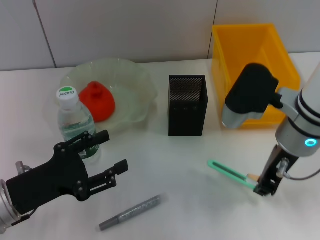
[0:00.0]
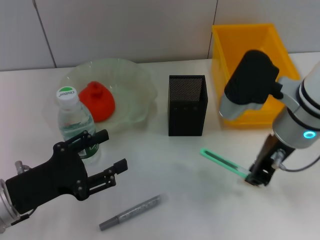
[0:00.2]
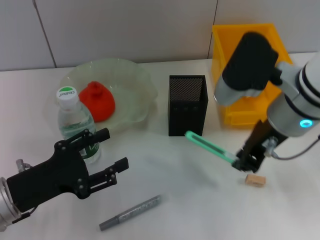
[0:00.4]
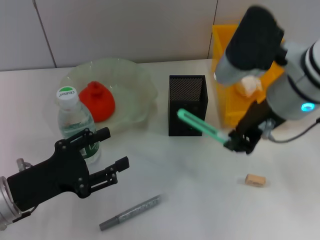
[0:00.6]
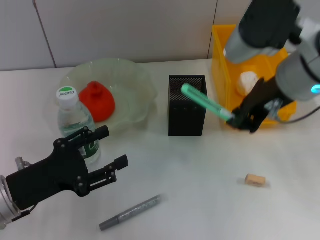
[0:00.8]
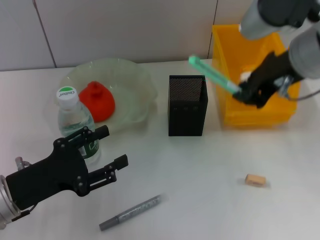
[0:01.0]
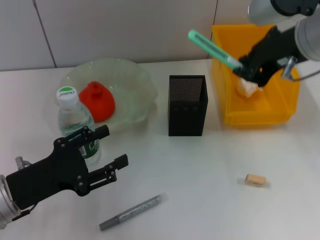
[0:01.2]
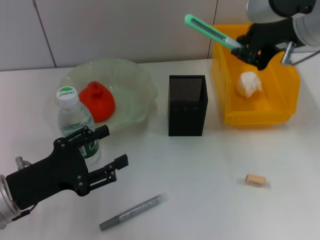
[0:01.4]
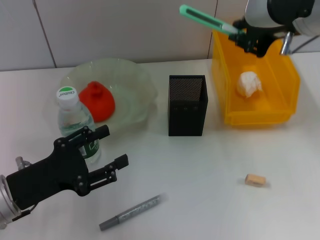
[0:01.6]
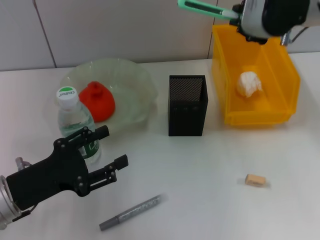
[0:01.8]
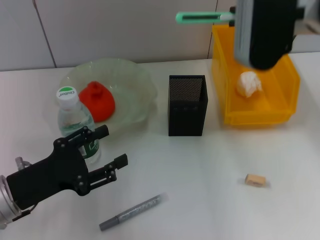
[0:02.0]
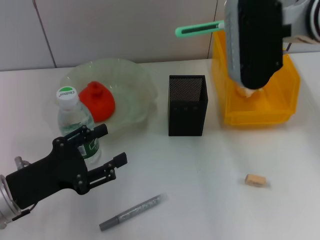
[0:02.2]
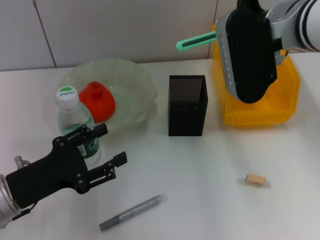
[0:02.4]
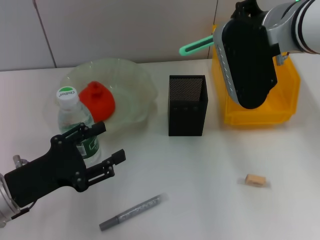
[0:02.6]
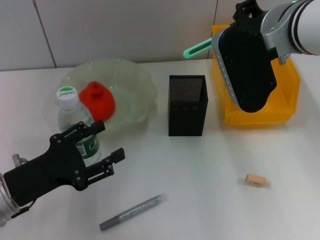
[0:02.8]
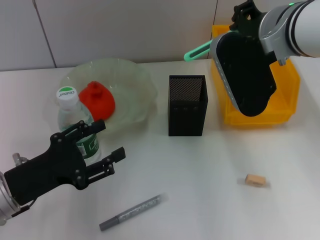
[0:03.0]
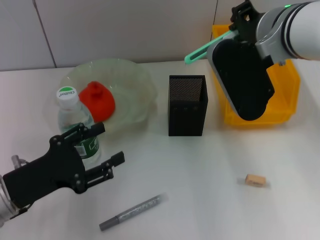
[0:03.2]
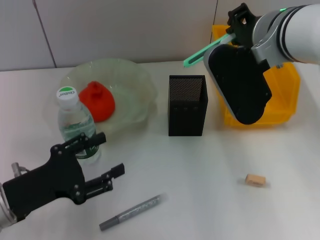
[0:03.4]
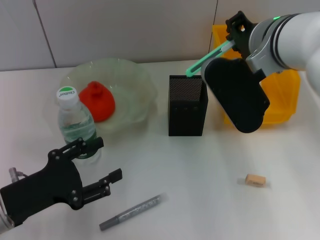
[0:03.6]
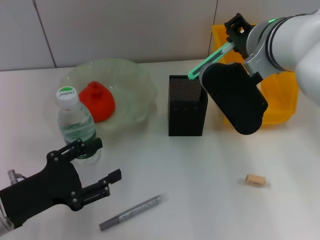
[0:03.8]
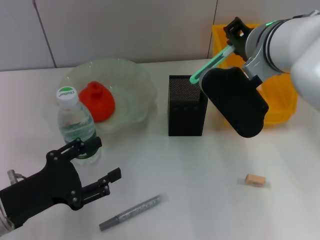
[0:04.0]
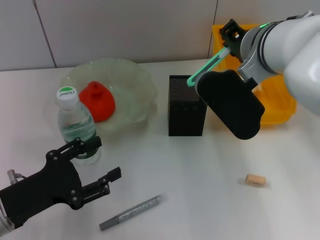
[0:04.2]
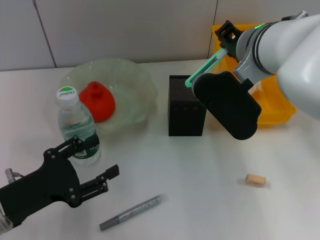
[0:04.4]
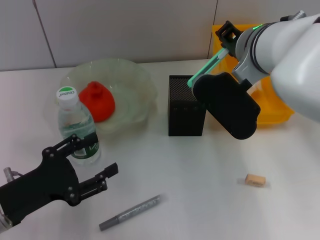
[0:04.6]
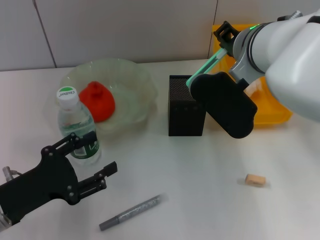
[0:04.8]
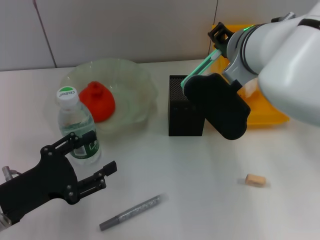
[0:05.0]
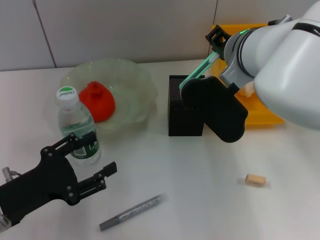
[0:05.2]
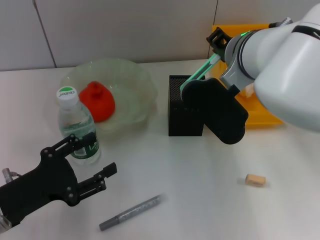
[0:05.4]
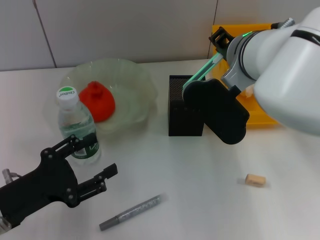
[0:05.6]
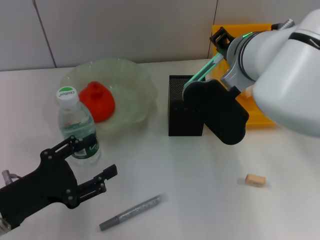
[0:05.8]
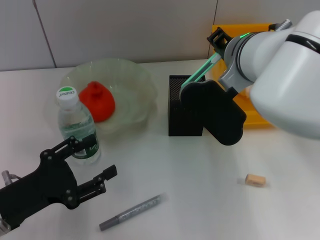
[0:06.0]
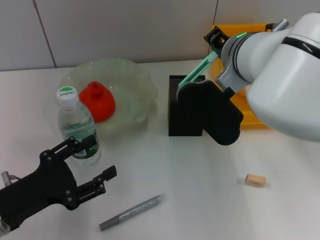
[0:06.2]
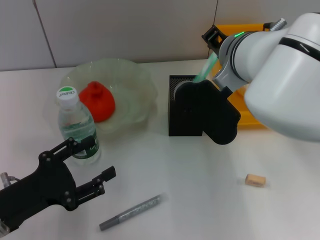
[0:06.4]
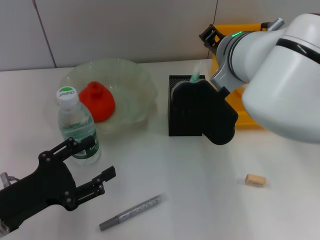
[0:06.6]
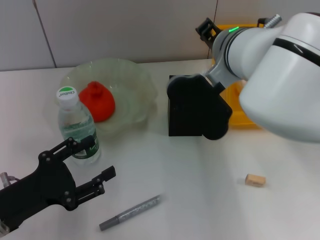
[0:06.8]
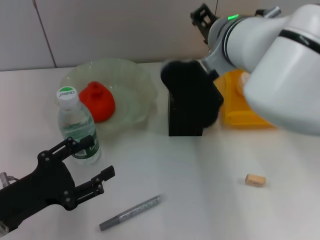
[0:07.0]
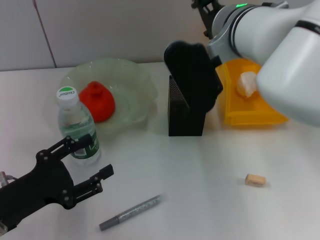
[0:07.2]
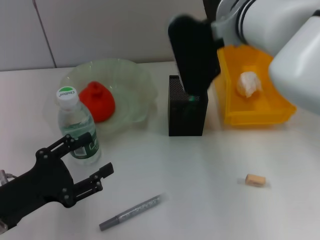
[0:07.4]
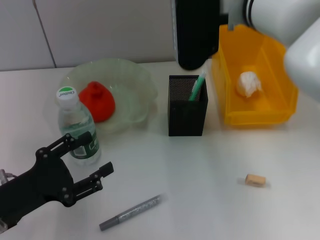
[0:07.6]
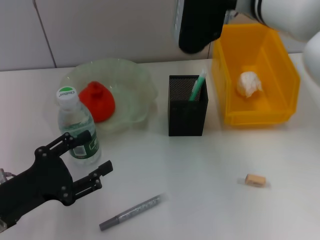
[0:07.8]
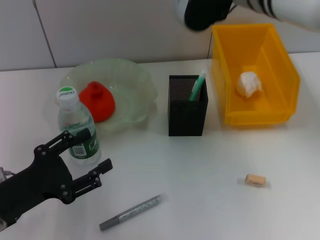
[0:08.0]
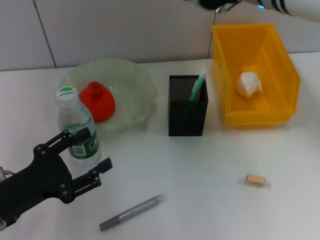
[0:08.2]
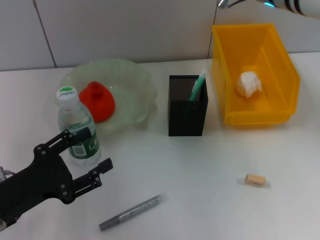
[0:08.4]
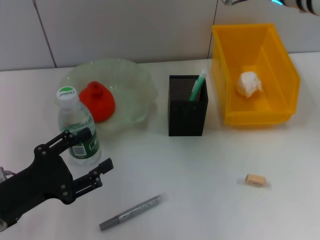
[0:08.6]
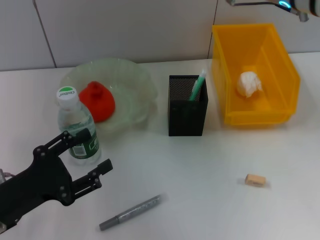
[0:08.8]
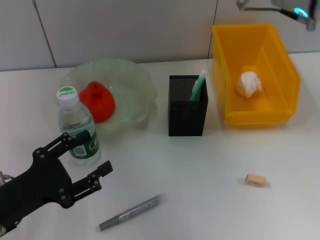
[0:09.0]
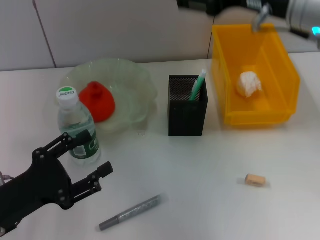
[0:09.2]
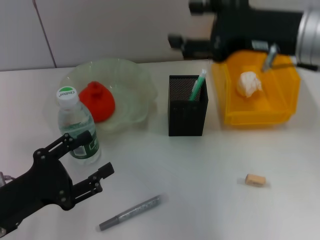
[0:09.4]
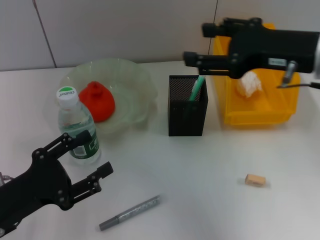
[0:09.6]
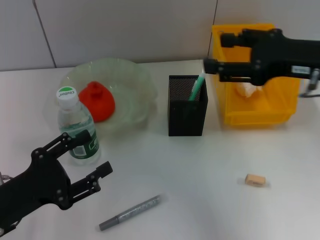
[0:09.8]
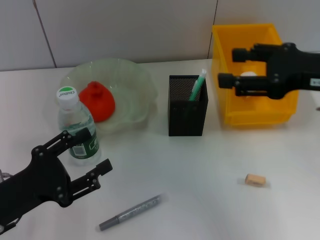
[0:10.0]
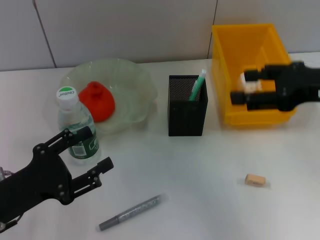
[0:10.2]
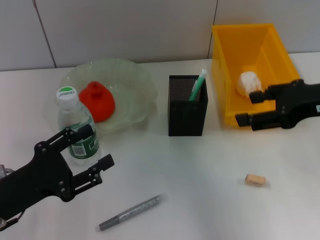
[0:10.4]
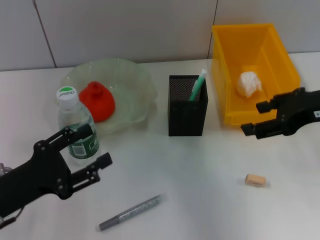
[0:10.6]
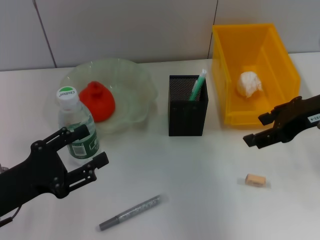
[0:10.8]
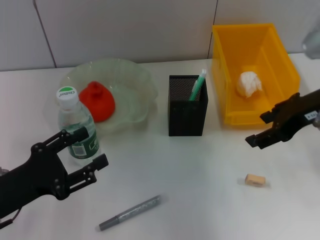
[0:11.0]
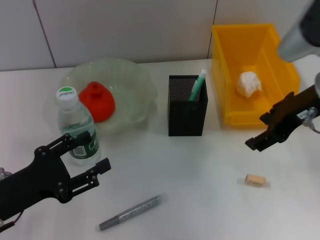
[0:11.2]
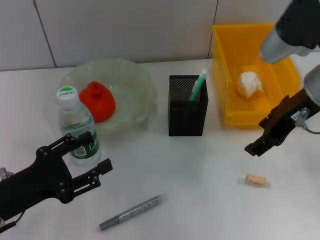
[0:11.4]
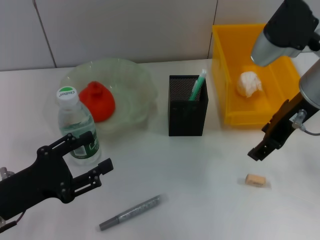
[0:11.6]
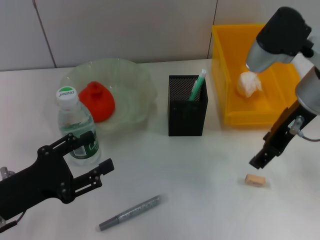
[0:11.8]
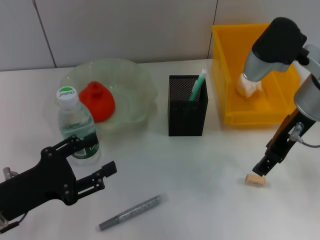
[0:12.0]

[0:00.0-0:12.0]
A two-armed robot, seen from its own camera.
Step, 0:00.0 to 0:06.8: Place the blue utility knife into the pen holder with the right hand.
0:00.0 to 0:01.6: The right gripper shifts some 10 cm upward.
0:01.6 to 0:03.0: The right gripper changes place by approximately 5 cm.
0:03.0 to 0:06.0: There are only small adjustments of the grippers.
0:06.0 to 0:07.6: The right gripper travels upward by some 5 cm, and opens up.
0:07.6 to 0:09.0: The right gripper travels to the right by some 5 cm.
0:09.0 to 0:10.4: The right gripper moves to the right and downward, approximately 10 cm.
0:10.4 to 0:12.0: The right gripper shifts some 5 cm to the left.

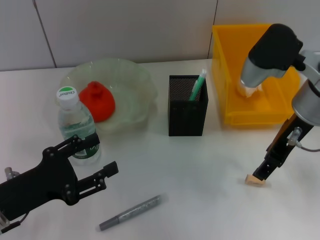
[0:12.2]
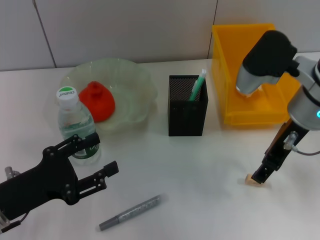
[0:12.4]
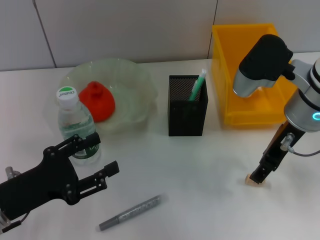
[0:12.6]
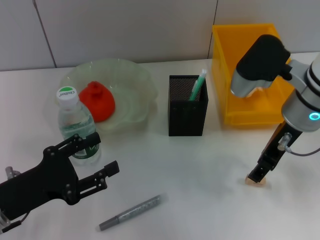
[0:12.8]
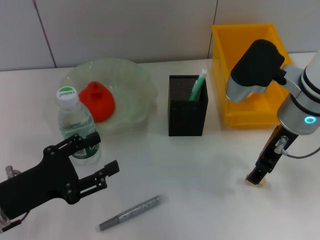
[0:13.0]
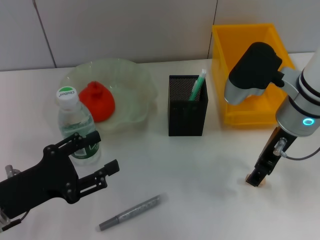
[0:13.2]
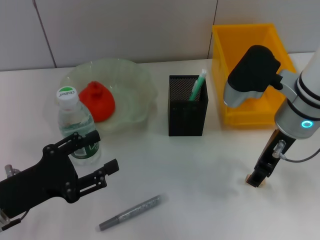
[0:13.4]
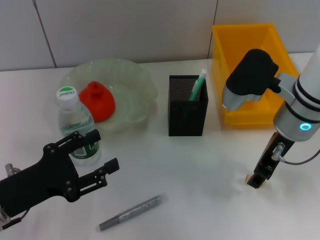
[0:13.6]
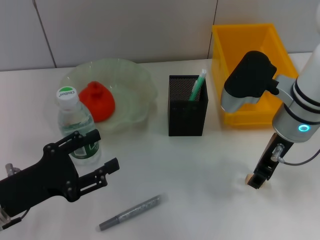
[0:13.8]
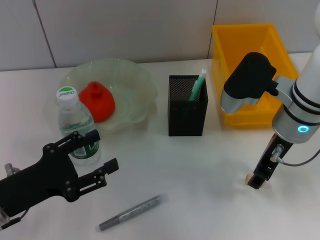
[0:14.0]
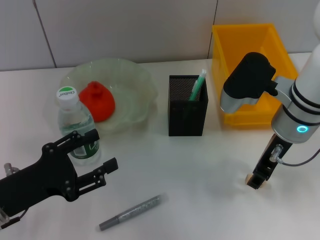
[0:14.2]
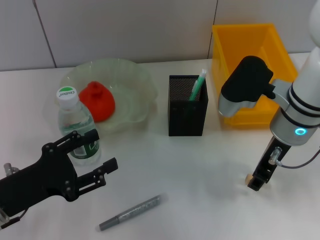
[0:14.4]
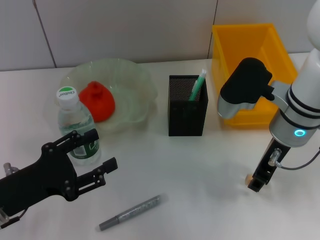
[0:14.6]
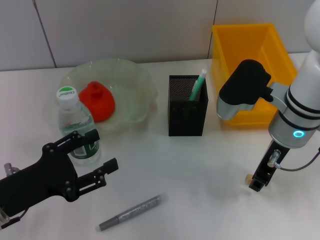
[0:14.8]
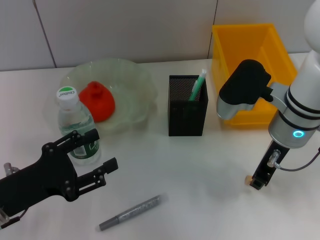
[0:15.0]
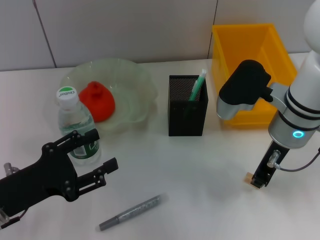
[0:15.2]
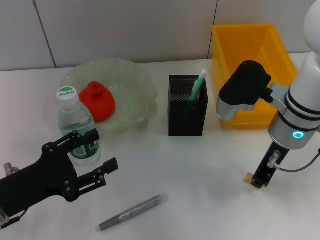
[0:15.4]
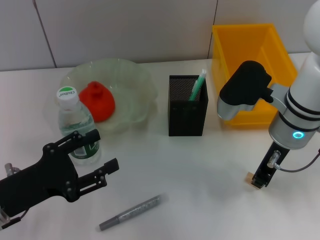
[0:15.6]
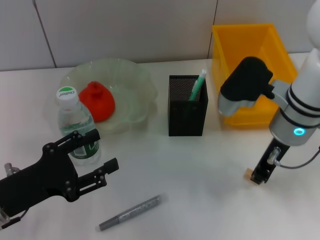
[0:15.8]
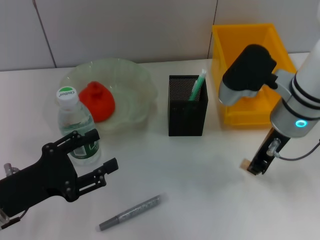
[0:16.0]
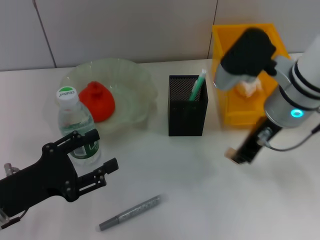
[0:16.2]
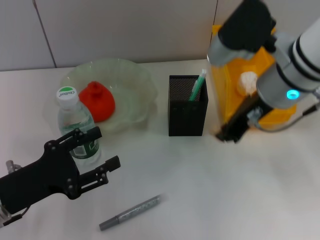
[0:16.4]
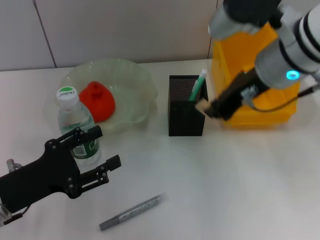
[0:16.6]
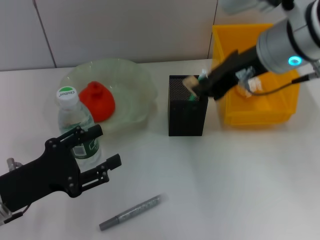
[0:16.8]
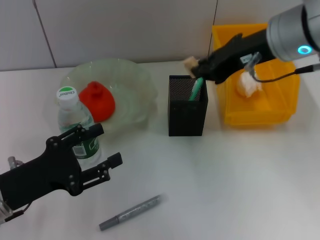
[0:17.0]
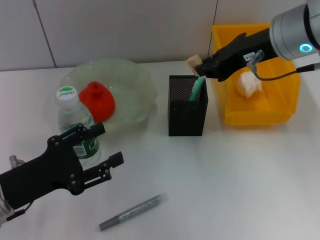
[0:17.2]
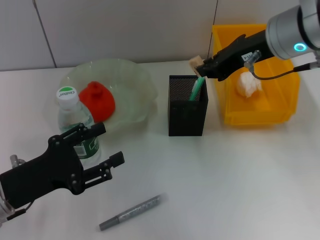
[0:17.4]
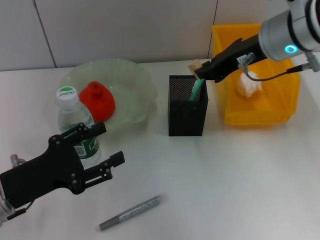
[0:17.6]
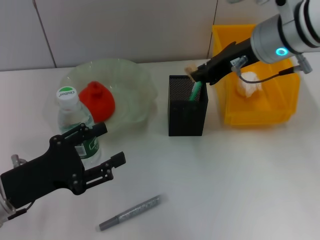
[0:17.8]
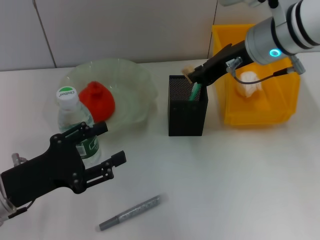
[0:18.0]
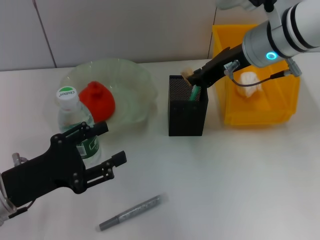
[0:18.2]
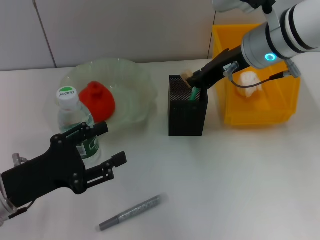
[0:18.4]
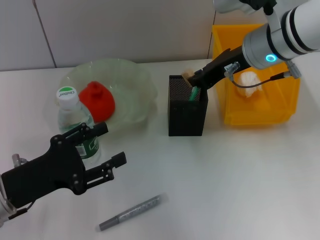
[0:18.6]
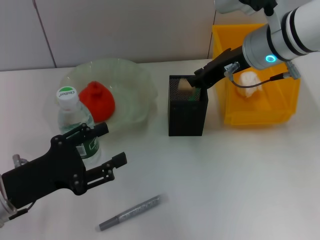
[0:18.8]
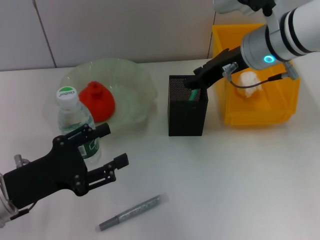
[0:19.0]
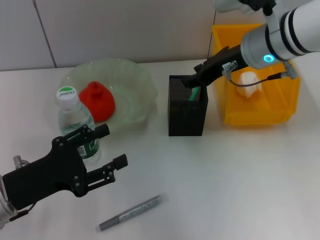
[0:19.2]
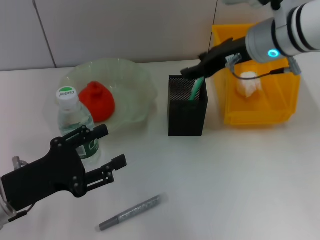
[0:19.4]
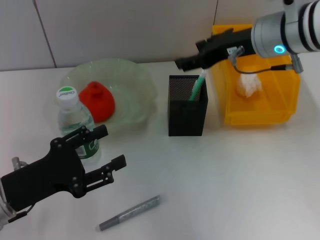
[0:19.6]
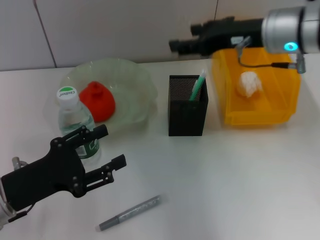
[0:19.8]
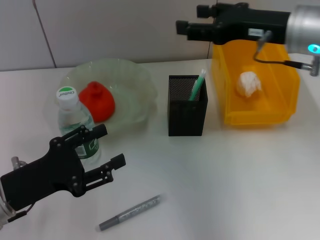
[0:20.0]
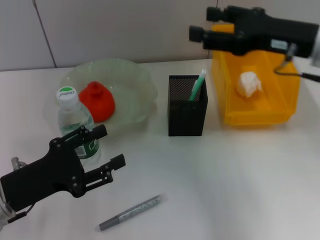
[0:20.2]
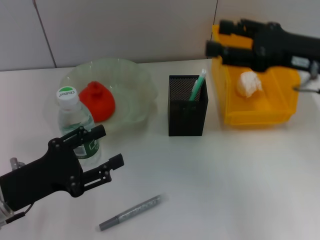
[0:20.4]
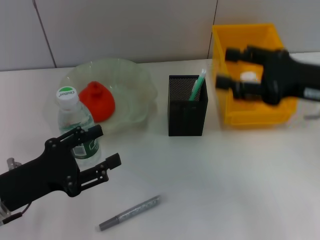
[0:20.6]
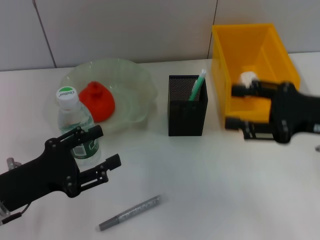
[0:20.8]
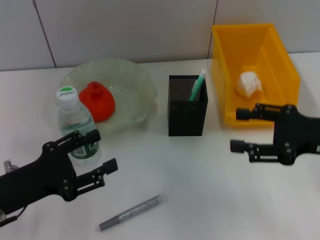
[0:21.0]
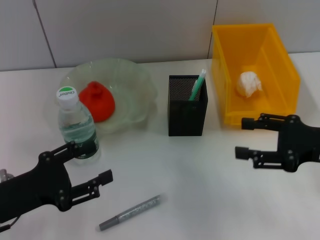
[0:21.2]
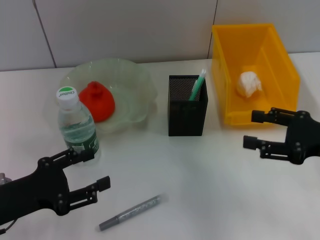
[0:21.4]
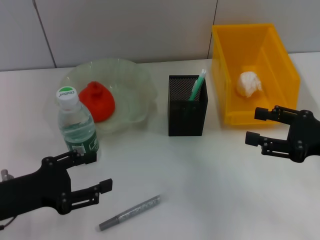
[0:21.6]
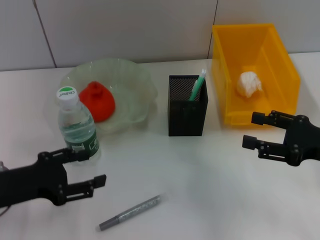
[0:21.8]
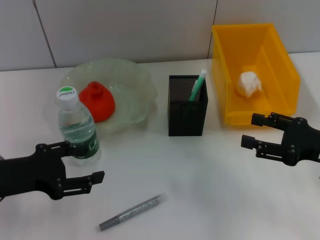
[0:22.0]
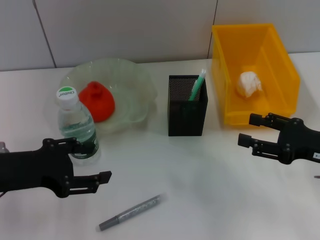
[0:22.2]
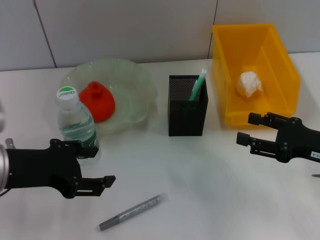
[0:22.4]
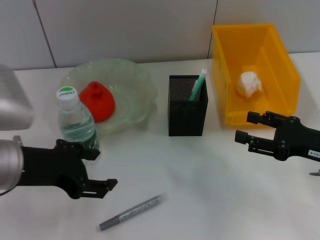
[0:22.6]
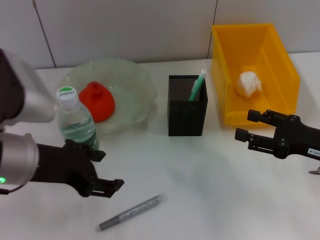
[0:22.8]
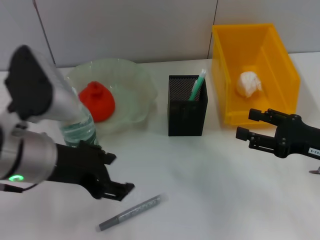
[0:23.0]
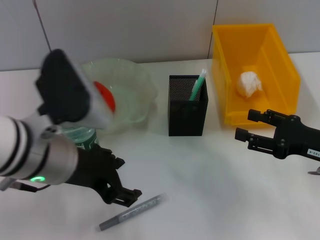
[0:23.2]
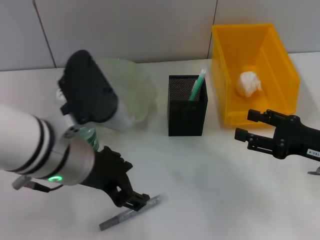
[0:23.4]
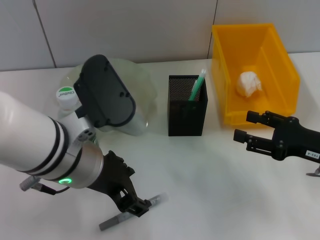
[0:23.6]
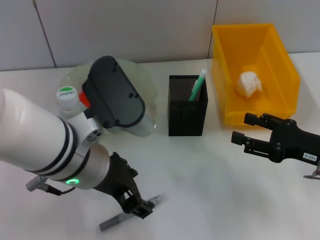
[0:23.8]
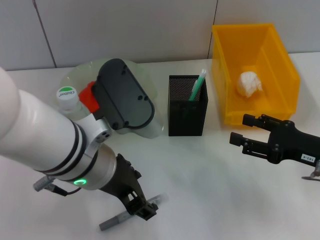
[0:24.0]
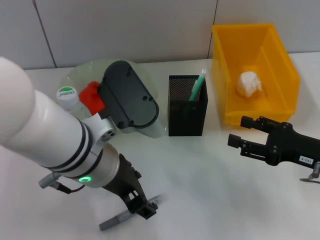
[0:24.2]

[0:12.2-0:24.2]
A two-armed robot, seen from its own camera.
Step, 0:12.2 to 0:15.2: Grab the eraser with the right hand.
Step, 0:15.4 to 0:19.0: Put the eraser into the pen holder with the right hand.
0:12.2 to 0:13.8: The grippers move only a little.
0:13.8 to 0:15.2: The right gripper closes its fingers.
0:15.2 to 0:16.6: The right gripper is displaced upward by approximately 10 cm.
0:16.6 to 0:18.2: The right gripper goes about 5 cm forward.
0:18.2 to 0:19.8: The right gripper opens its fingers.
0:19.8 to 0:21.2: The right gripper travels backward, to the right and downward by approximately 20 cm.
0:21.2 to 0:22.6: The left gripper moves upward and to the right, about 10 cm.
0:22.6 to 0:24.2: The left gripper goes about 10 cm to the right.
